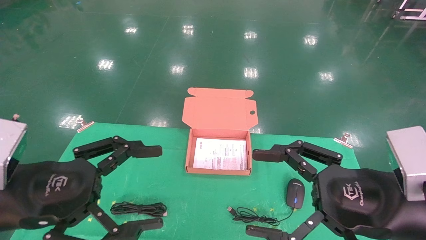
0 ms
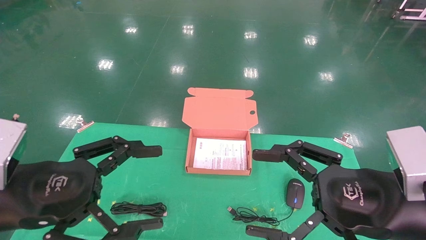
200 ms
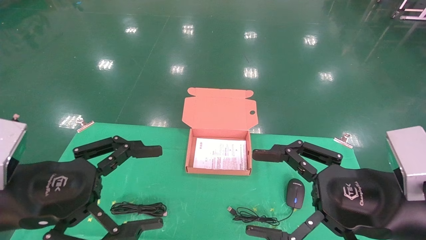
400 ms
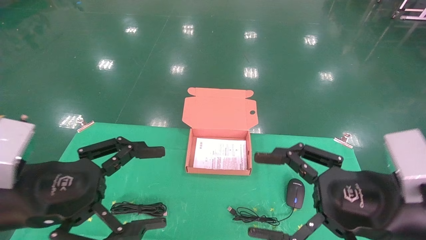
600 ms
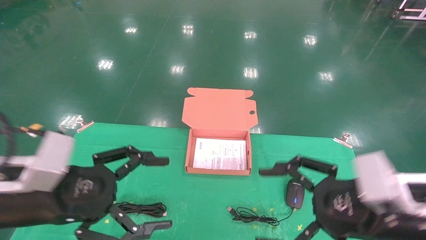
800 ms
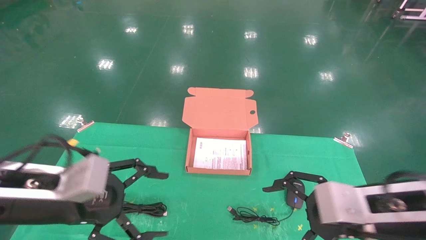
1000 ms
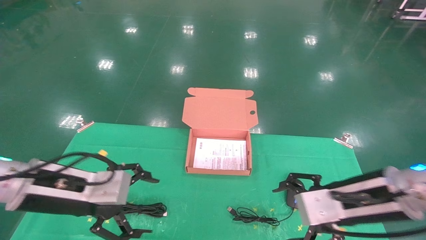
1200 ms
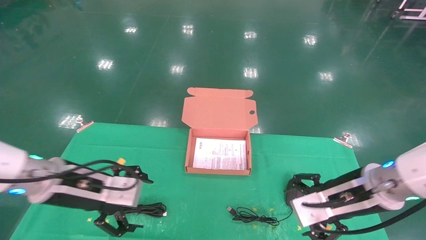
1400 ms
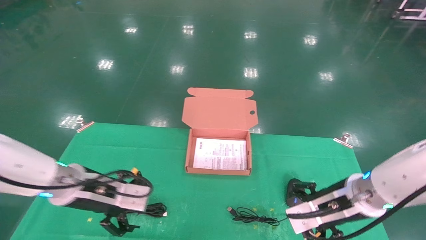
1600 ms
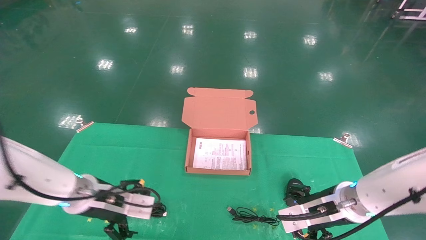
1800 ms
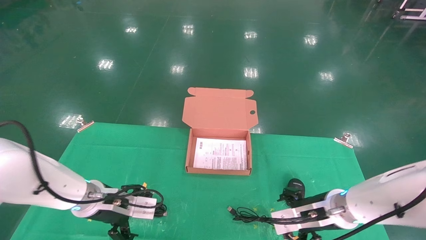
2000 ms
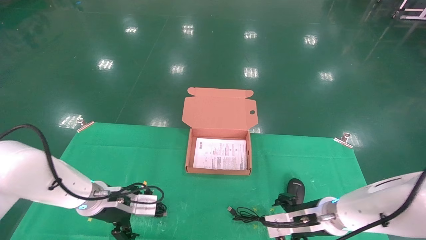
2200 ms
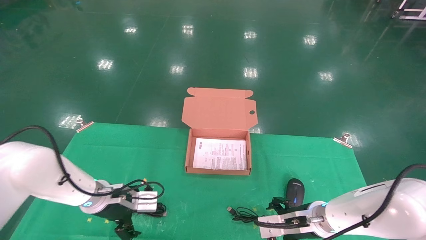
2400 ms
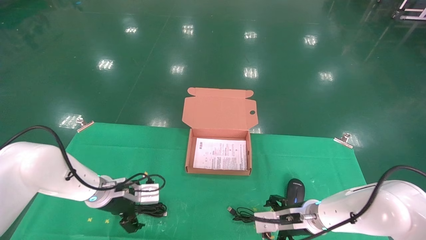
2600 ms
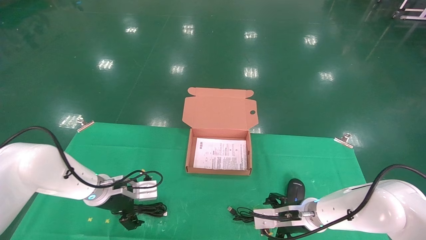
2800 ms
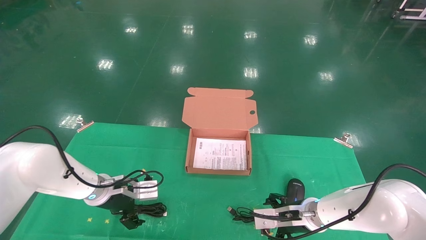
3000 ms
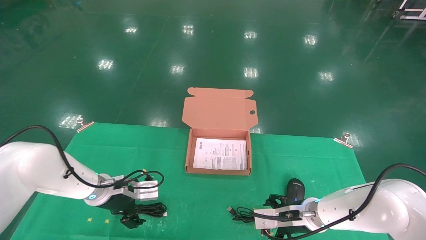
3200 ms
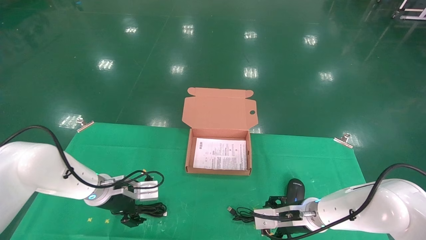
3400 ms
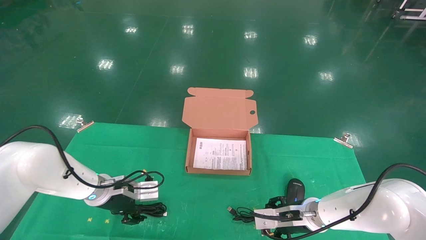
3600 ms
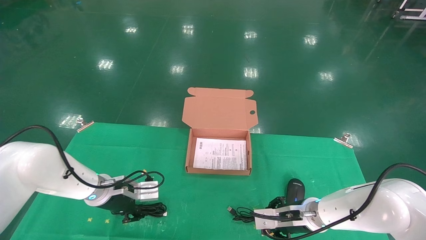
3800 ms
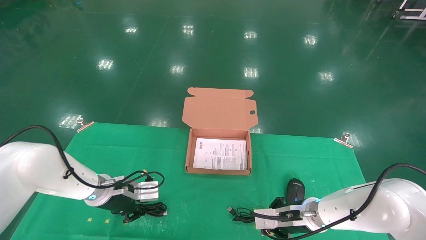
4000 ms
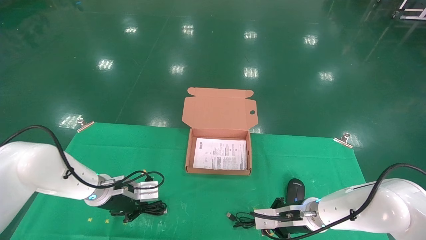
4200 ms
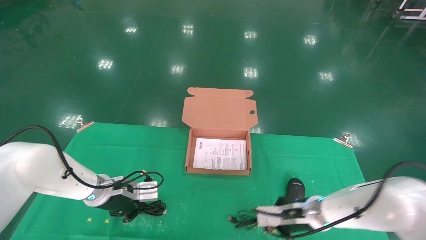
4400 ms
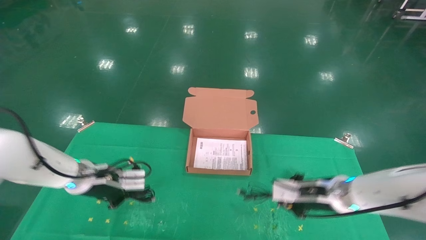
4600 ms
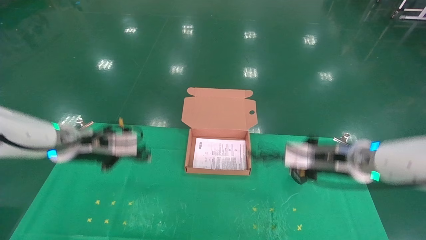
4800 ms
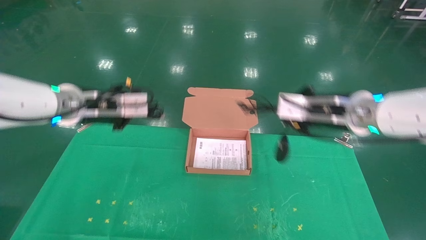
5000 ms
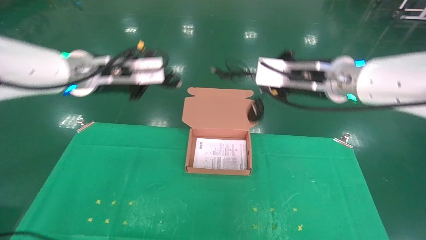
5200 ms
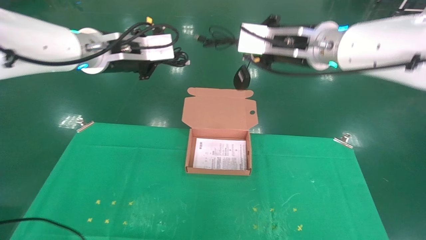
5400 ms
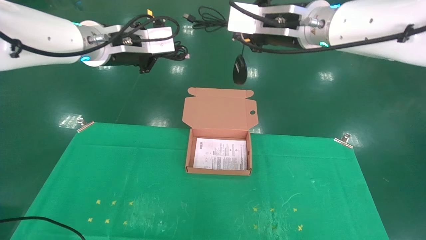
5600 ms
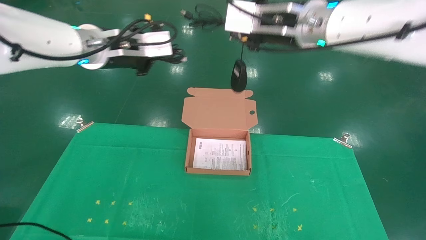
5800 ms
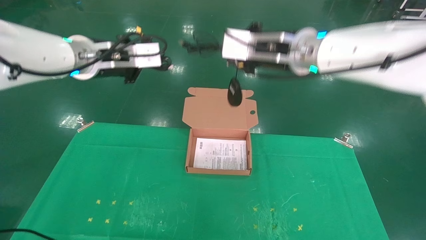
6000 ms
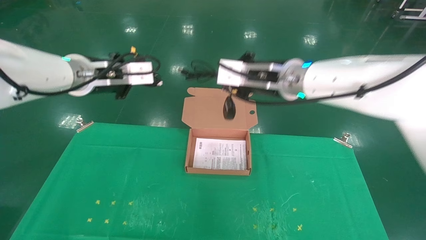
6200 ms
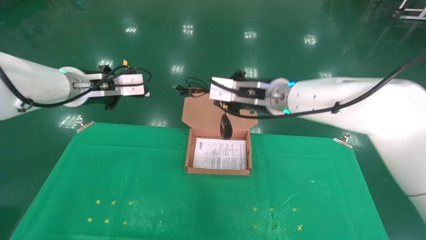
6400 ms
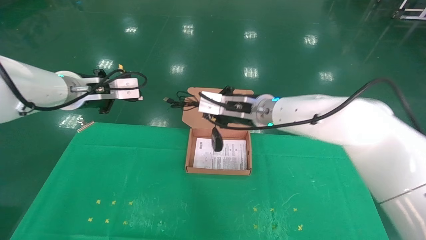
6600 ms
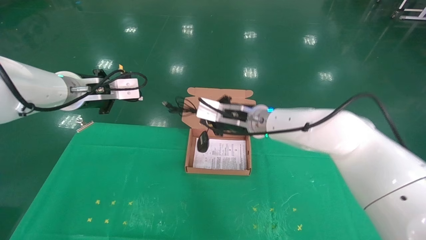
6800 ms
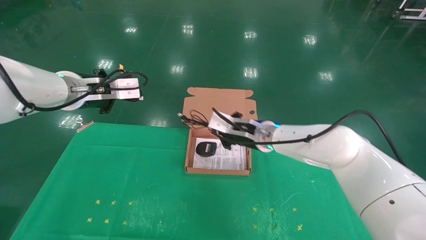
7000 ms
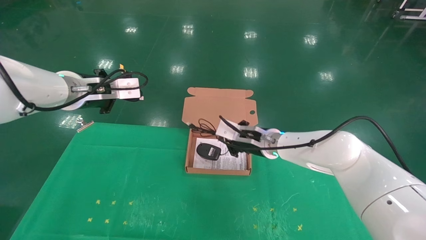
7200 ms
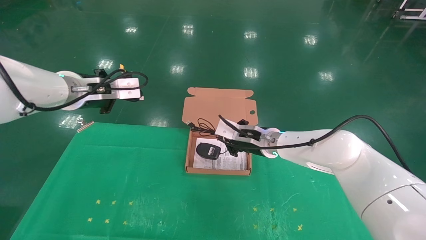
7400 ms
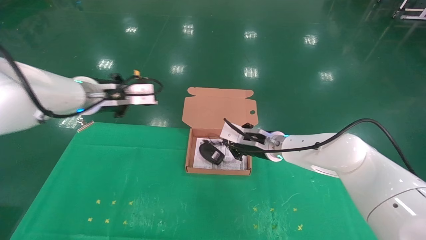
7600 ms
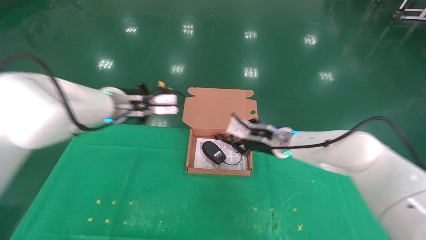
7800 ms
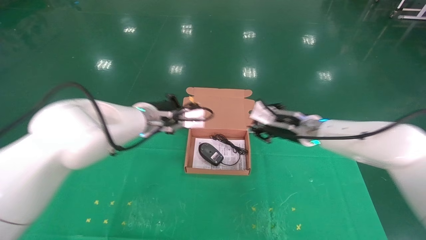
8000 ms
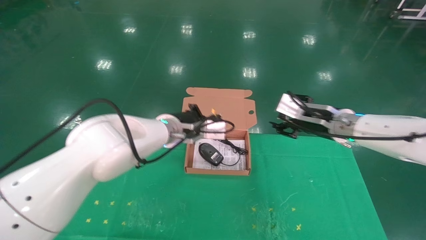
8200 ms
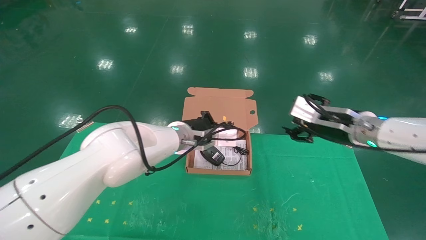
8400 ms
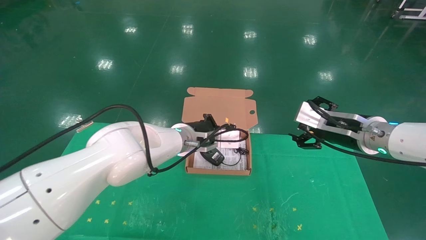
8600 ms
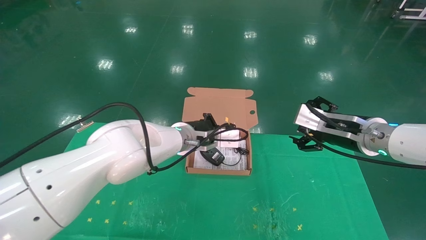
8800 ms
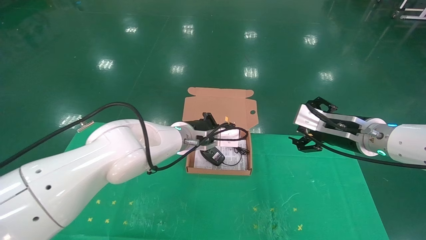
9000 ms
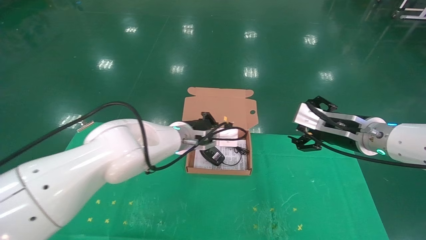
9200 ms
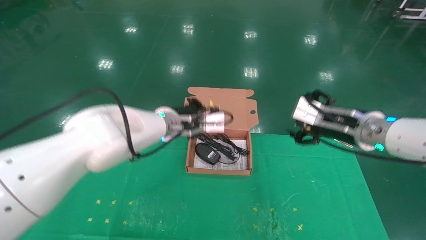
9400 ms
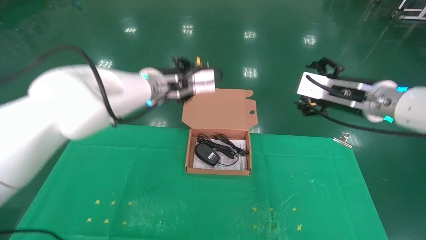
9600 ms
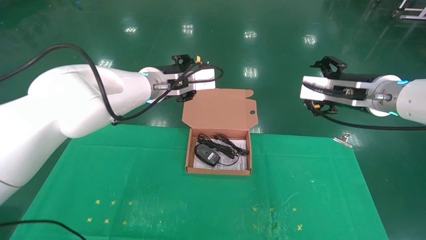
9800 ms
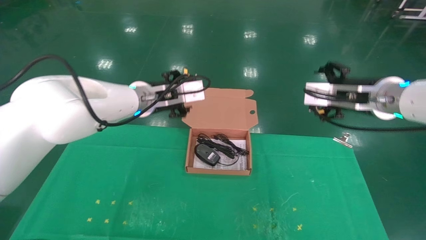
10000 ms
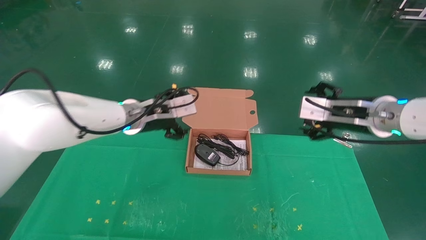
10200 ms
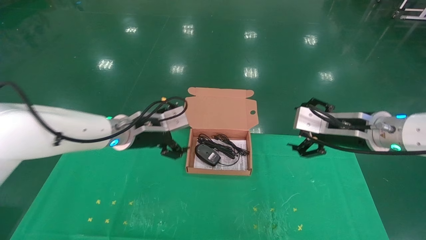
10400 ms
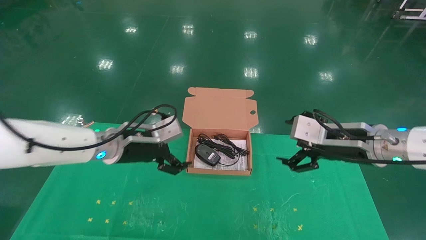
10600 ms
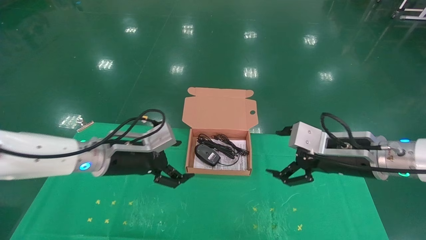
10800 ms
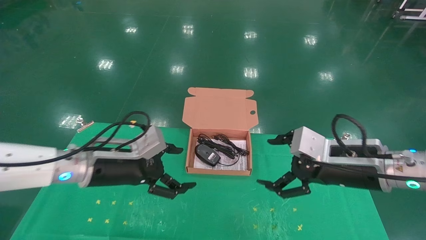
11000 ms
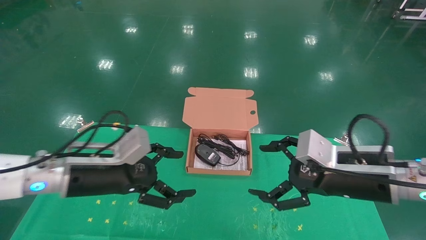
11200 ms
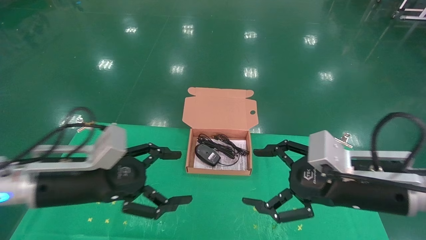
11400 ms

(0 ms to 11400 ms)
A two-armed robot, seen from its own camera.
Task of the whole recording: grasp data cable left put into box grasp mouse right put into box.
Step, 600 ms - 4200 ms: Grab and pick up both the mouse and power cord from the accessory packaging area at the same time.
Step, 4400 ms - 8800 ms: Place the mouse and power cord into the box.
0 ms - 1400 ms: Both grippers travel together forward and downward, some 10 cm.
1400 ms - 2800 ms: The right gripper moves downward and forward, about 15 cm. Meanwhile the left gripper travels forward and downward by some 15 cm.
2800 ms - 4200 ms: The left gripper closes up. Meanwhile the right gripper closes.
4200 ms - 5600 ms: The two grippers go roughly 35 cm upward.
5600 ms - 7200 ms: The right gripper is displaced downward and forward by some 25 cm. The left gripper is displaced downward and to the left by roughly 10 cm.
7200 ms - 8600 ms: The left gripper goes some 25 cm to the right and downward; the right gripper is displaced to the right and backward by approximately 20 cm, and opens its fingers.
8600 ms - 10000 ms: The right gripper shifts roughly 5 cm upward. The left gripper moves to the left and upward, roughly 10 cm, and opens.
10000 ms - 11400 ms: The right gripper moves backward and downward, about 15 cm. Meanwhile the left gripper heads backward, to the left and downward, covering some 20 cm.

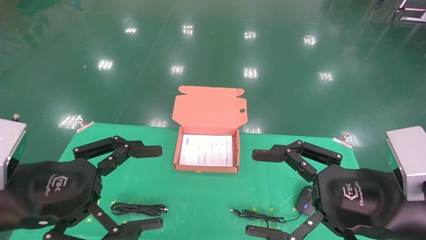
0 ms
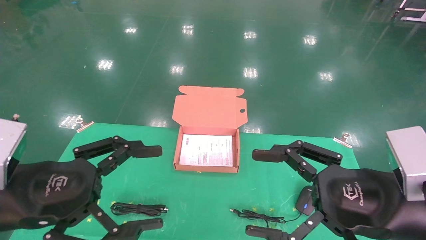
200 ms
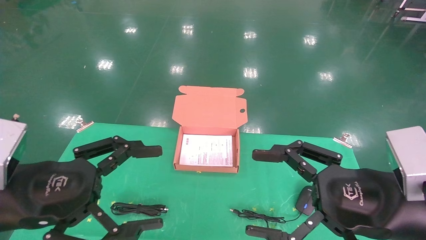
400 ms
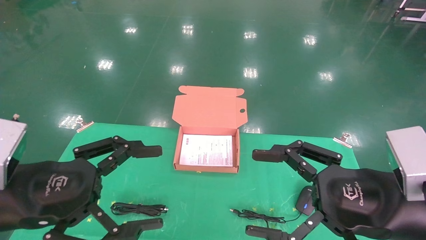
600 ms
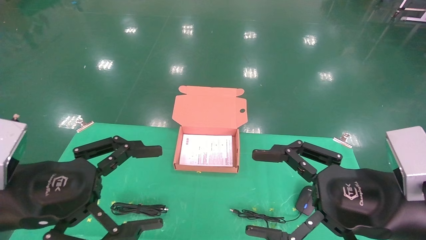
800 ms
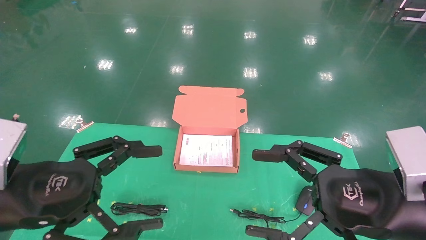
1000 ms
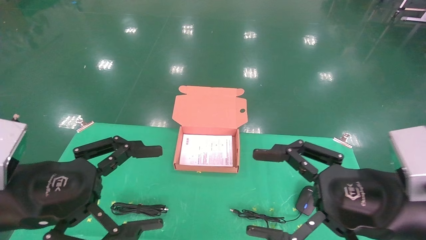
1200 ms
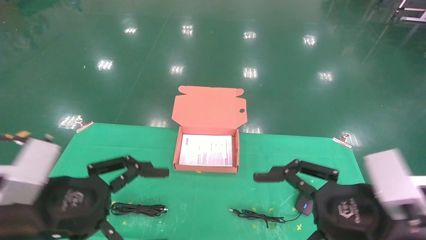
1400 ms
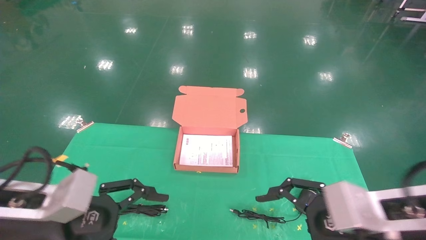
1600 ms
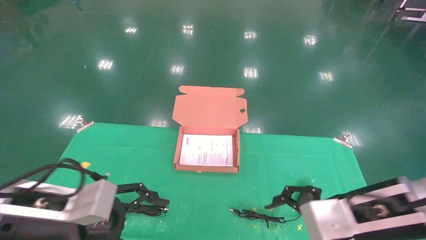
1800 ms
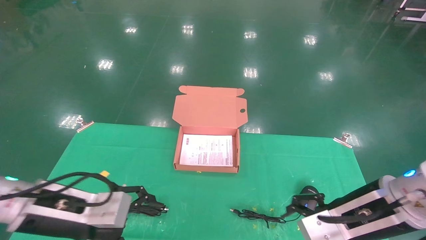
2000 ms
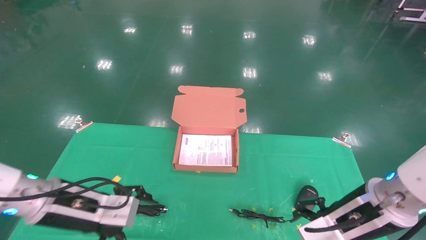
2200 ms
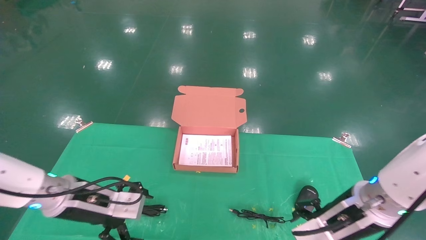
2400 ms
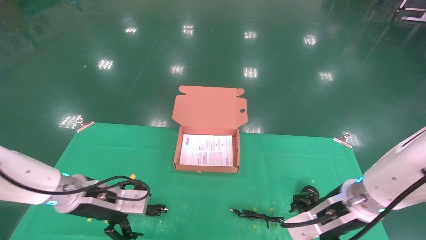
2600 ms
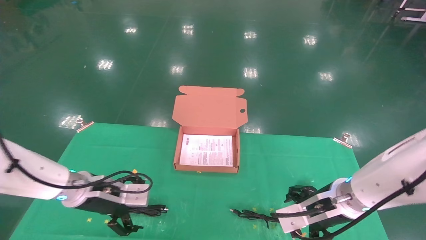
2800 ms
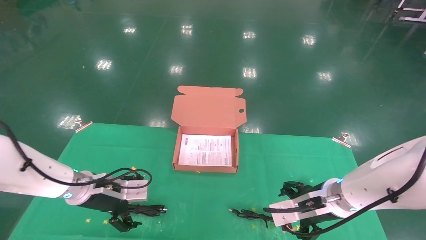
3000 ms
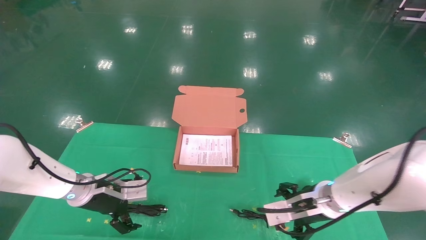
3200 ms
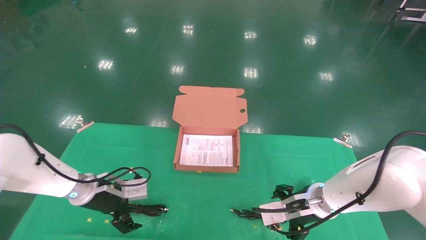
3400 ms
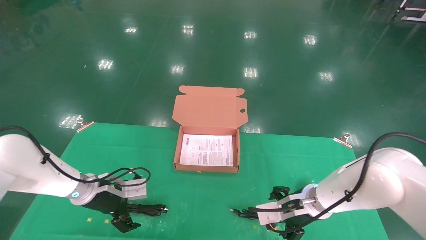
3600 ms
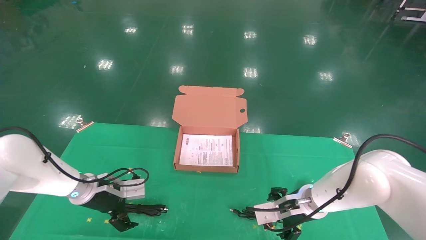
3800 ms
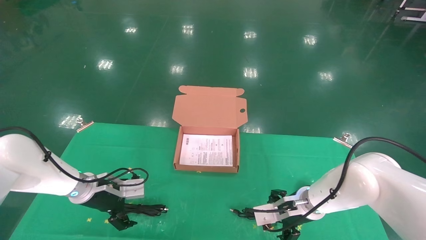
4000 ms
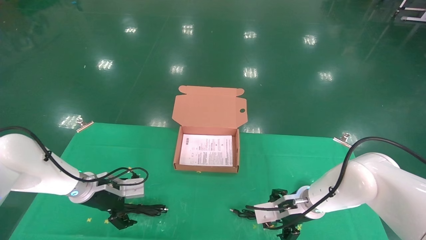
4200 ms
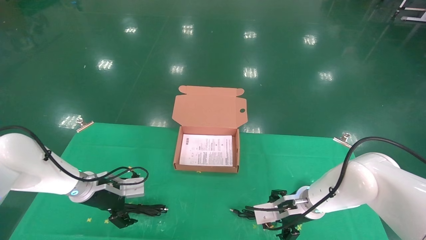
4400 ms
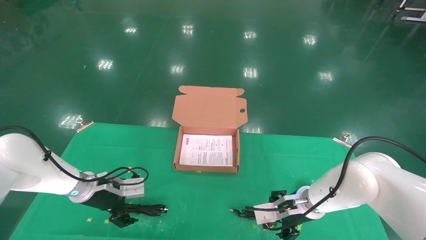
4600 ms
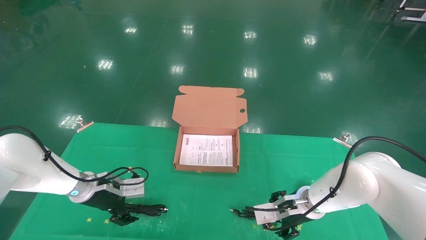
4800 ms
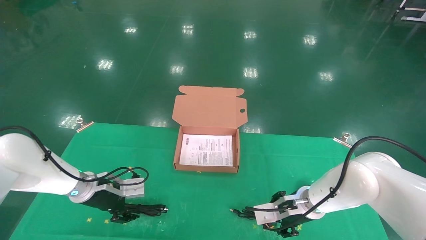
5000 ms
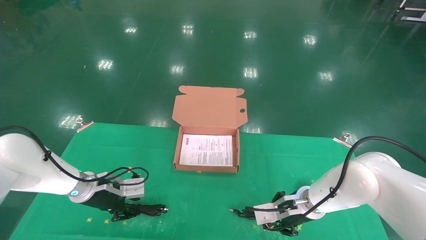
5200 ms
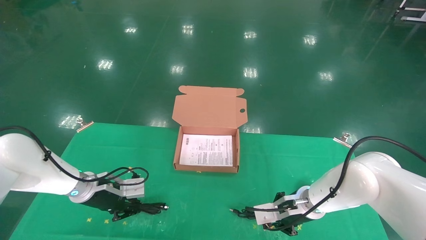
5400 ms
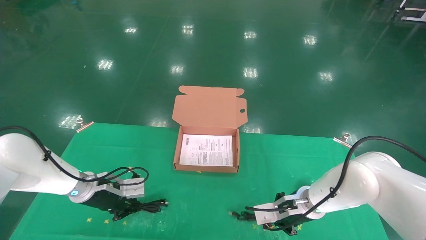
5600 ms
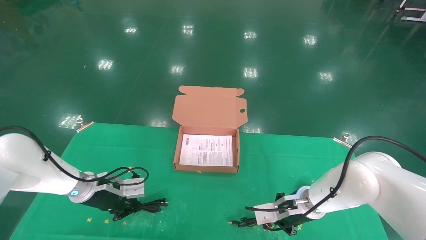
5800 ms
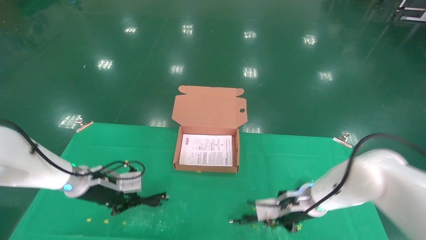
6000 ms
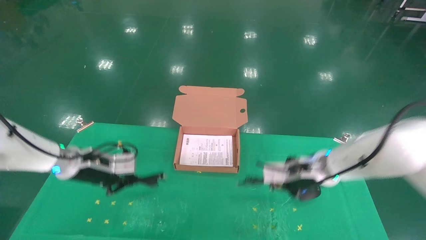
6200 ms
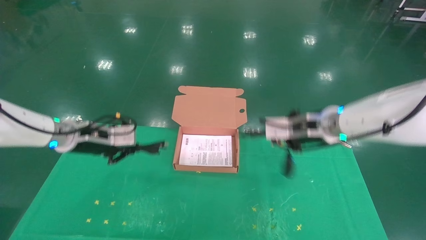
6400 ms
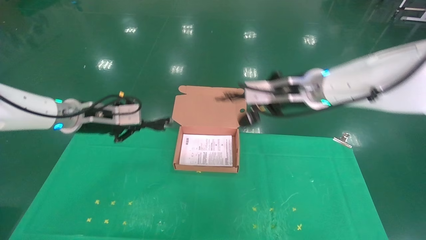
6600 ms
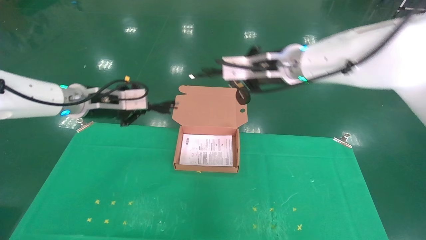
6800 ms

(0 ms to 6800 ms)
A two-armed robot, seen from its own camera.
Task of the whole recording: grasp data cable left put into box grasp mouse right put into box.
Step, 1200 ms - 5600 ms: Grab and pick up both the mouse and power cord from the accessory packaging area at the same time.
1400 ms - 2800 ms: The two grippers go approximately 15 cm forward and downward.
2800 ms - 4000 ms: The right gripper heads forward and downward, covering roughly 10 cm, while the left gripper goes some 5 cm forward.
4000 ms - 5400 ms: The left gripper closes its fingers. The right gripper closes.
5400 ms - 6800 ms: The two grippers go some 25 cm upward.
